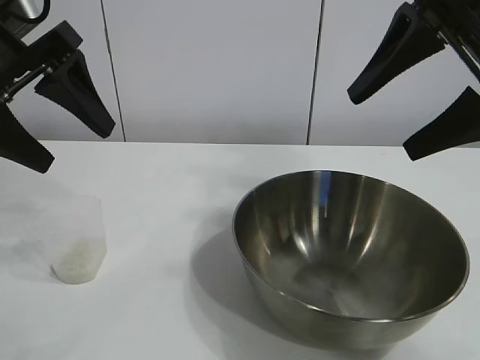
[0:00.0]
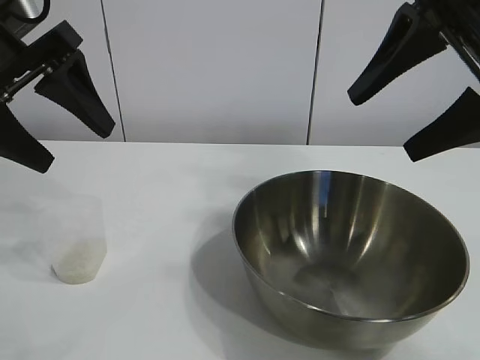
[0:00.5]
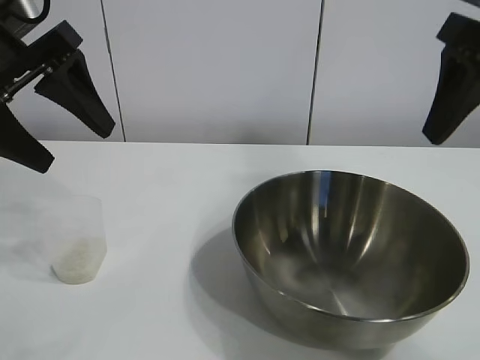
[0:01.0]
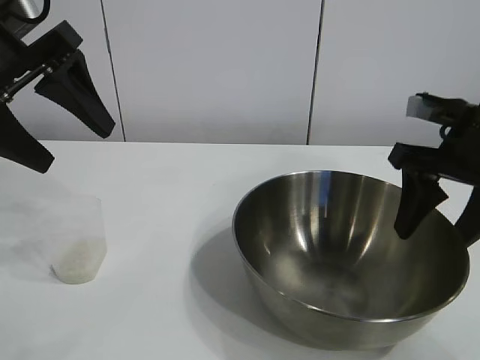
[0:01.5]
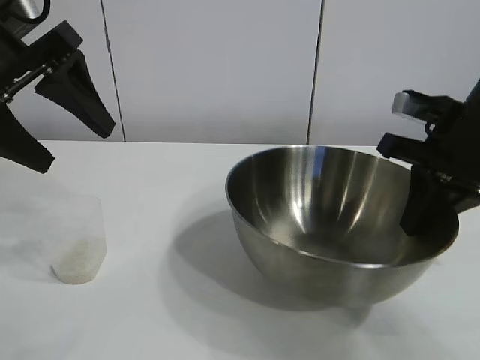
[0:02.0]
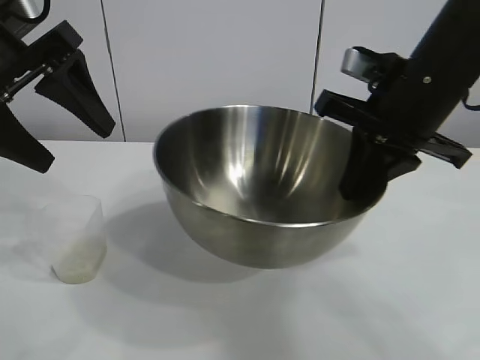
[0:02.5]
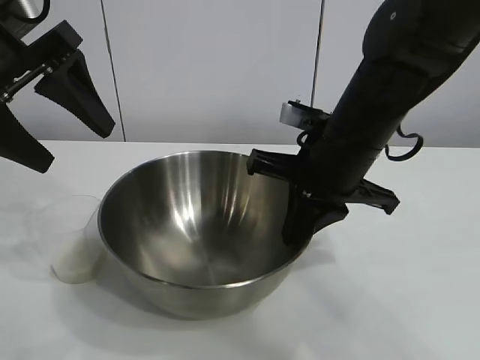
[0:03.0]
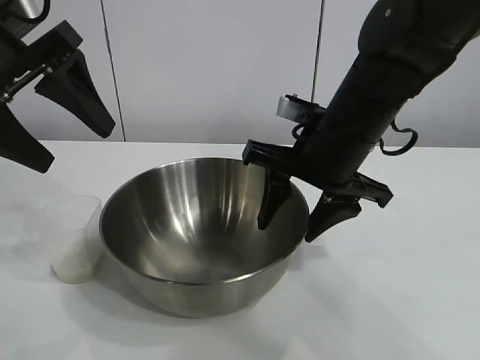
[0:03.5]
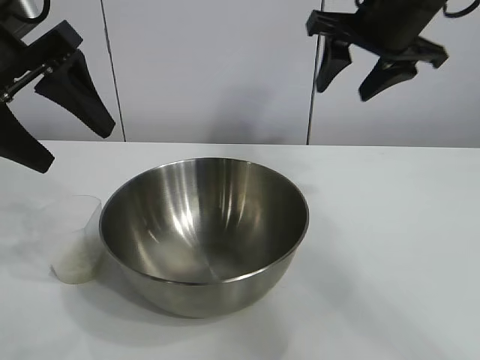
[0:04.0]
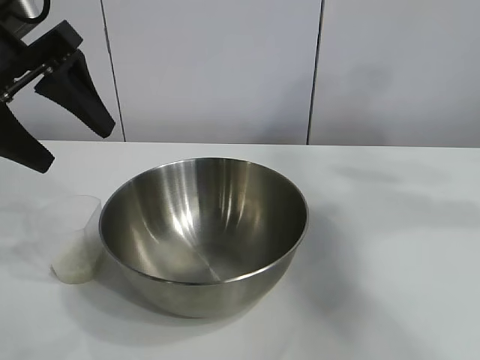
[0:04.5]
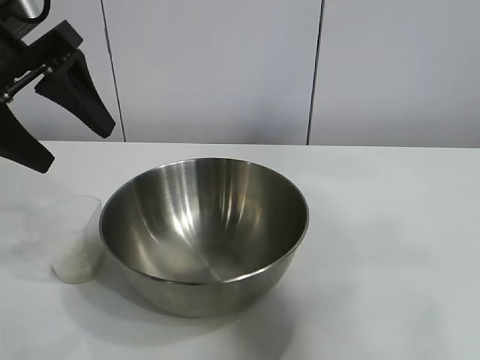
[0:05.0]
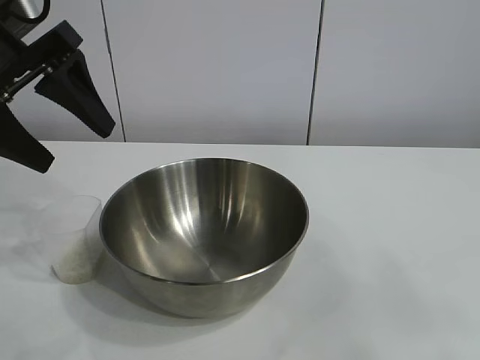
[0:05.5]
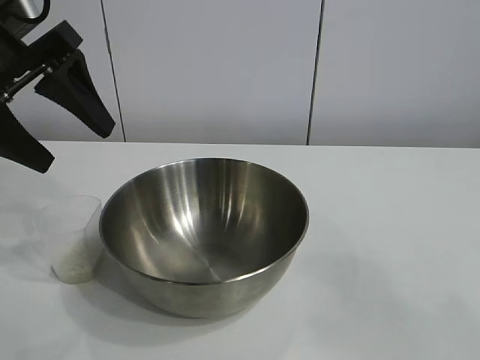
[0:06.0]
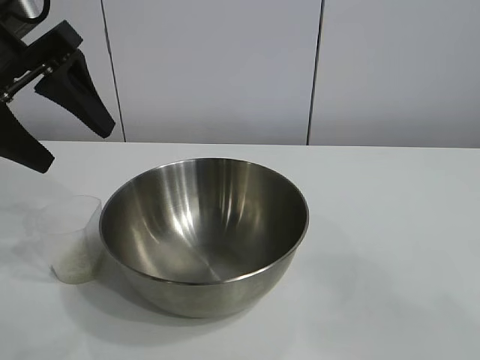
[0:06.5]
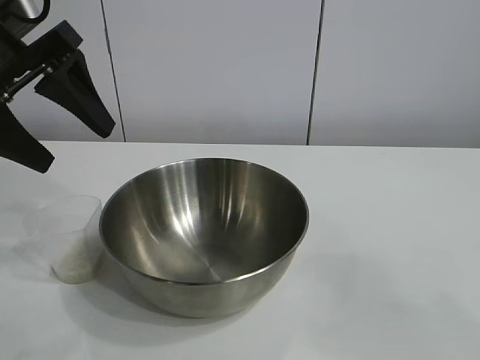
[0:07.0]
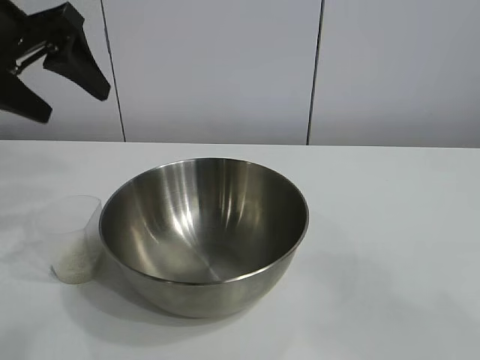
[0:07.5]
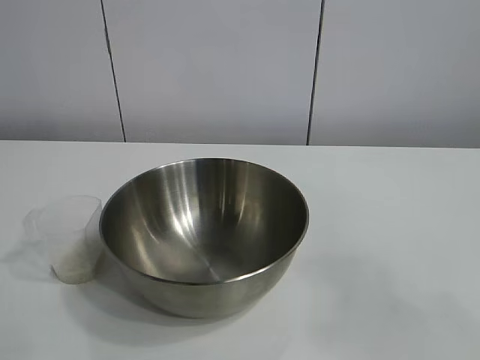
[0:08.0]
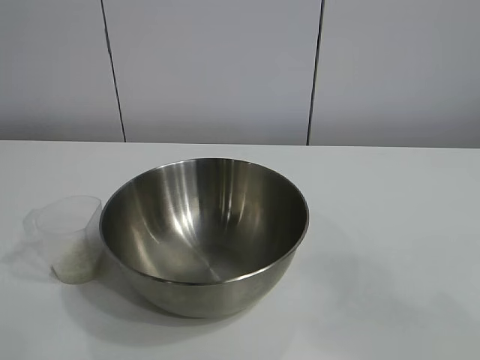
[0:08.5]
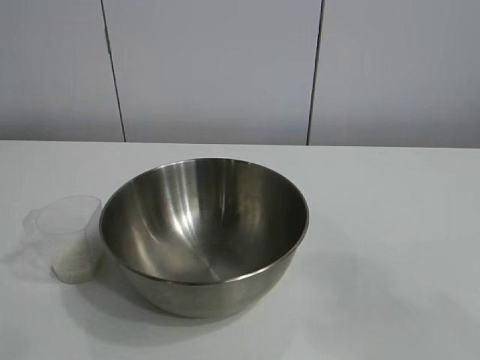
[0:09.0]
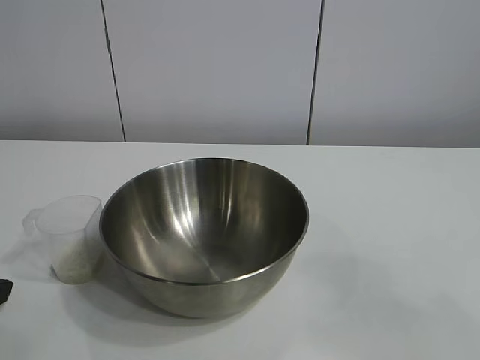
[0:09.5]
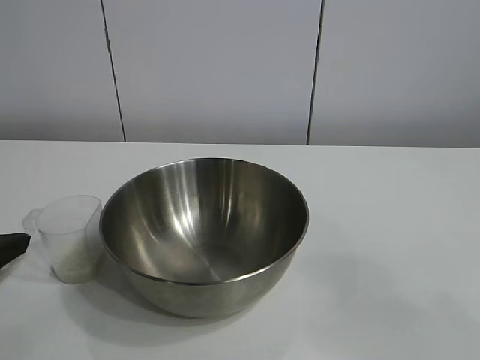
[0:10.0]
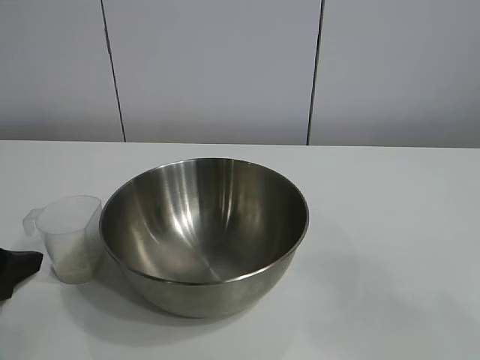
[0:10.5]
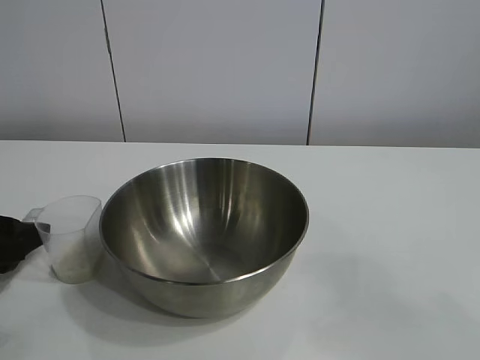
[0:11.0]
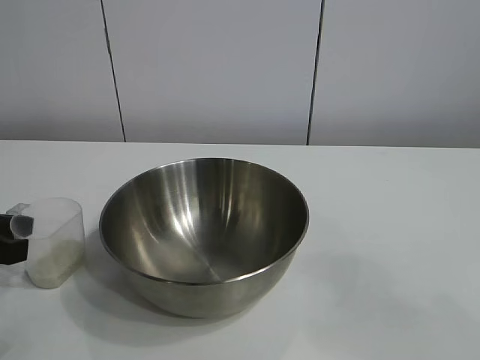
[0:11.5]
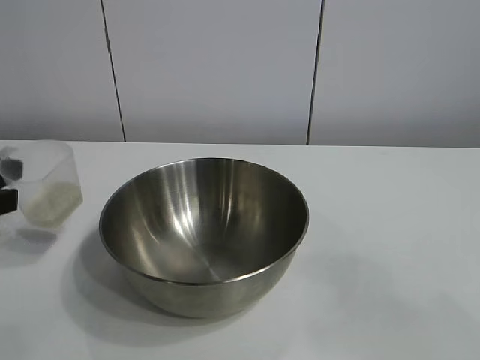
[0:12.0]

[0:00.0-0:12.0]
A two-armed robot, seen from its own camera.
Task of the whole recording: the right gripper grasp the rice container and place it in the center of the table, the left gripper grasp the rice scoop and pour the rice into the rice container.
Step, 0:01.0 to 0:03.5: Move the bowl in the center of view with right gripper.
Step, 0:04.0 to 0:11.5: Grasp the cup with rice in it with left gripper.

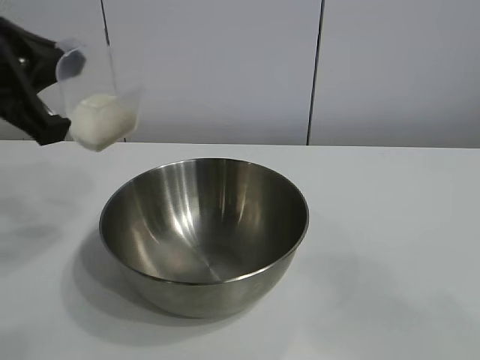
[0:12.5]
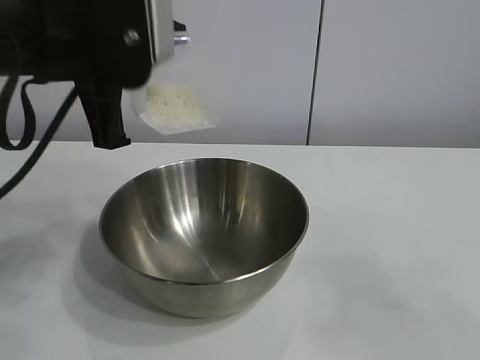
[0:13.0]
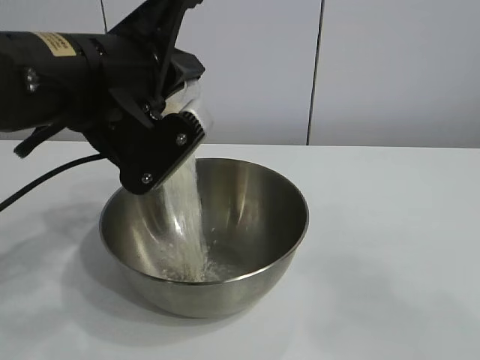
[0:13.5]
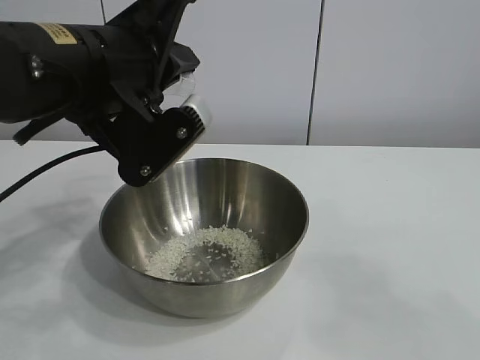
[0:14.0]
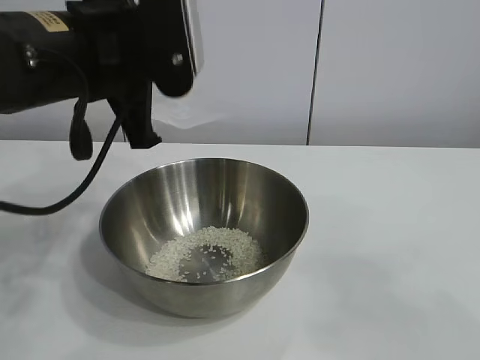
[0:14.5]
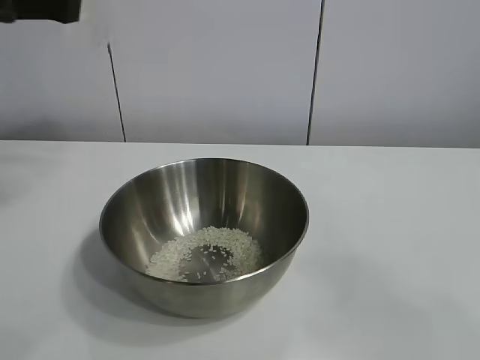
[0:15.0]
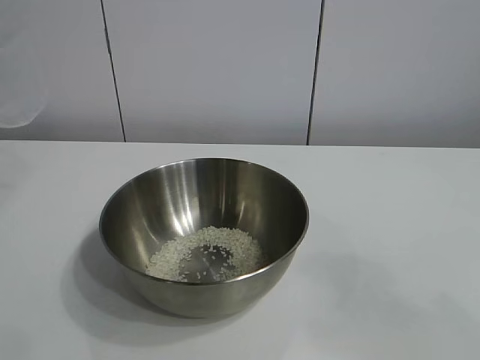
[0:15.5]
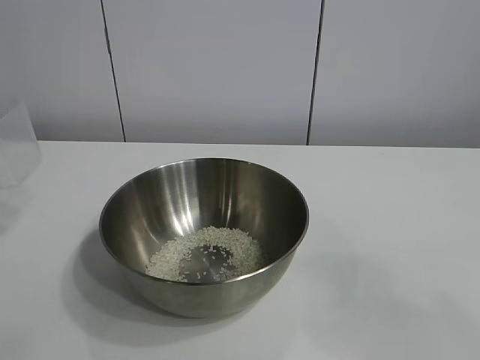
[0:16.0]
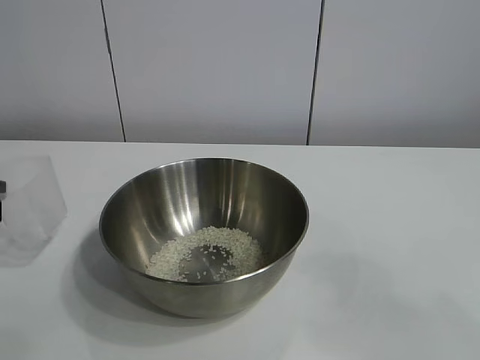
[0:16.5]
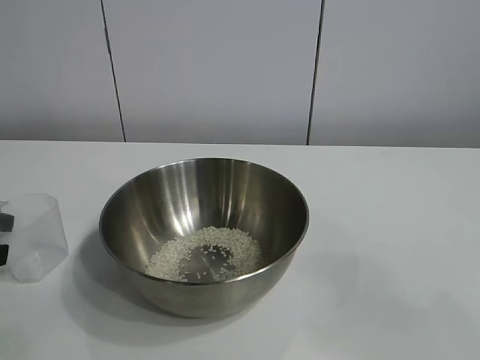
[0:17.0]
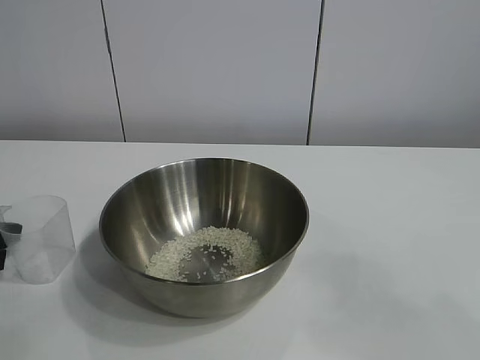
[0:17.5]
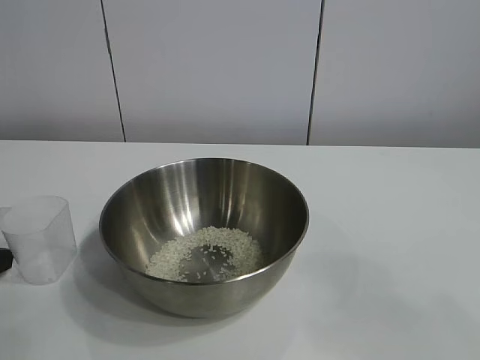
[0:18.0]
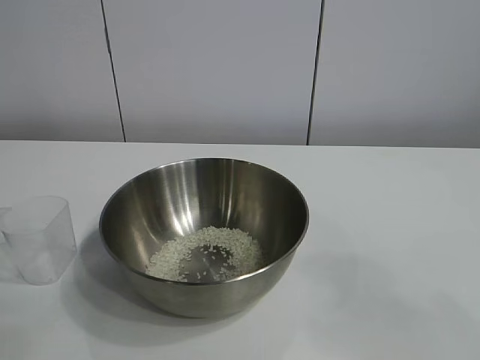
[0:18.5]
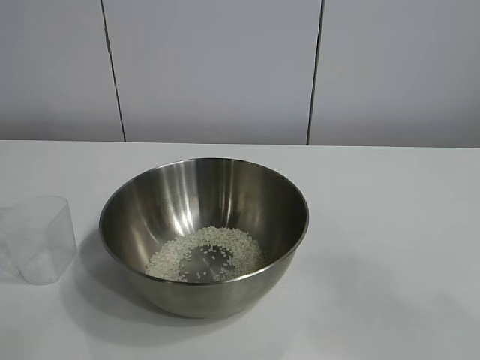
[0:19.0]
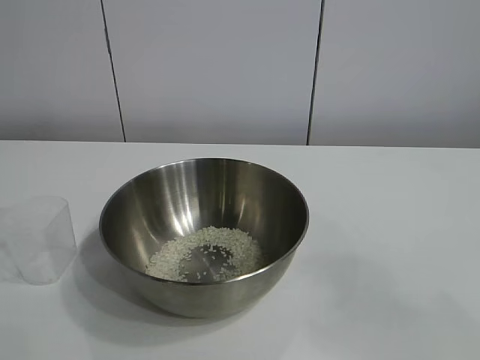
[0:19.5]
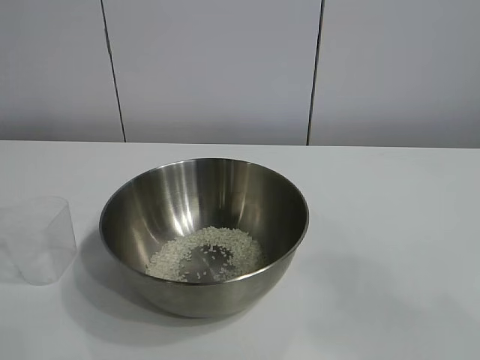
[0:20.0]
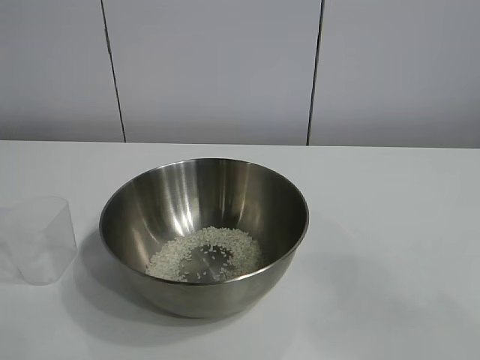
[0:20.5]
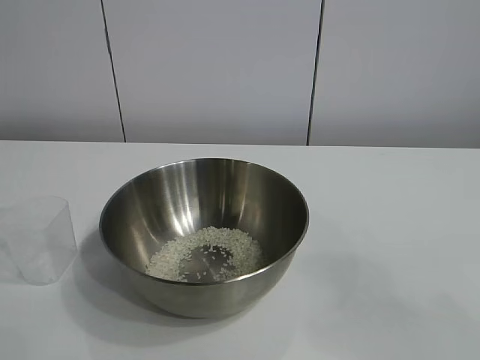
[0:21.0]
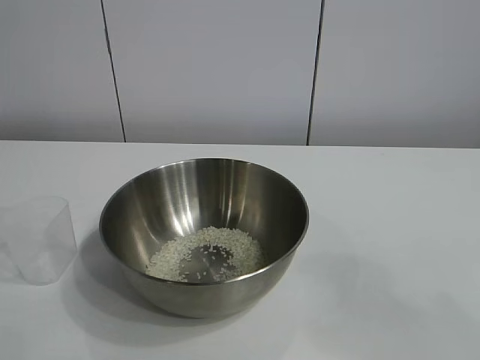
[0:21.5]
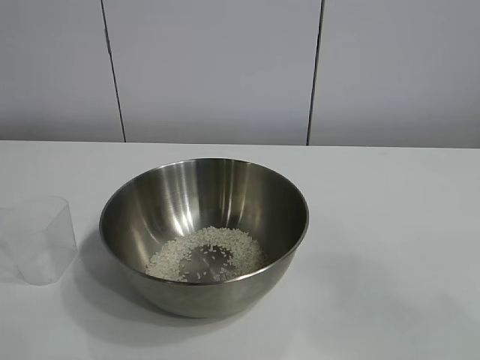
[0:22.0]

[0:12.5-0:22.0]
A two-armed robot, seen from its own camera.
Task of the whole recording: the right gripper grasp the rice container and place it in the center of the table, the left gripper grasp the rice scoop and pour the rice into the rice container.
Step, 0:12.5 to 0:14.0: Pour the rice from the cup into the bowl with the left gripper.
Step, 0:14.5 to 0:17.5: Place the cup on the table with the left gripper.
